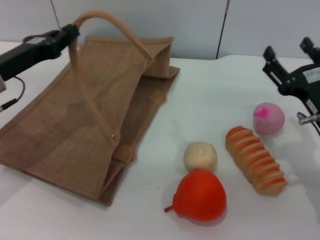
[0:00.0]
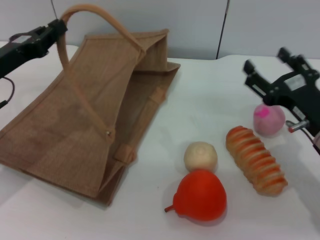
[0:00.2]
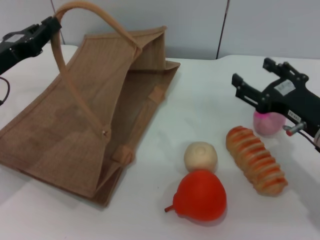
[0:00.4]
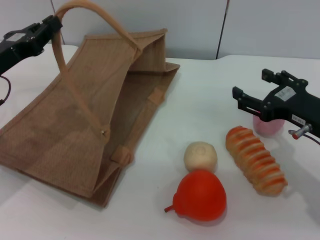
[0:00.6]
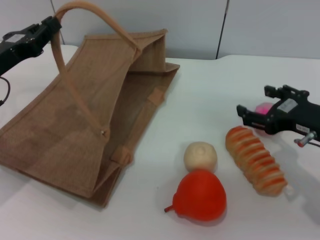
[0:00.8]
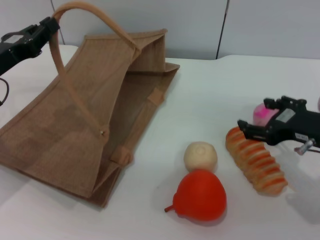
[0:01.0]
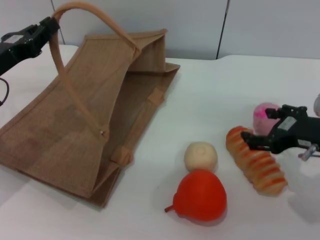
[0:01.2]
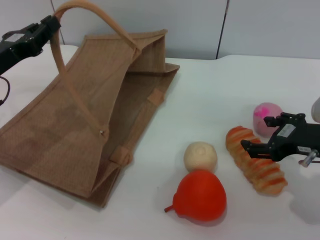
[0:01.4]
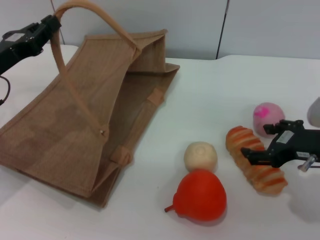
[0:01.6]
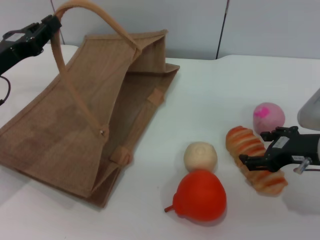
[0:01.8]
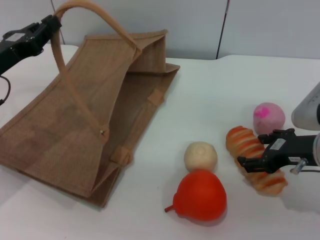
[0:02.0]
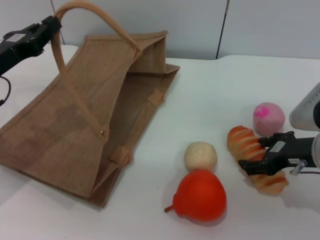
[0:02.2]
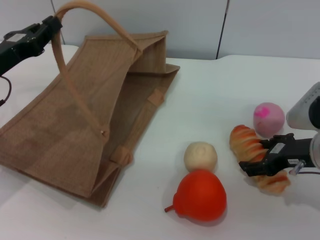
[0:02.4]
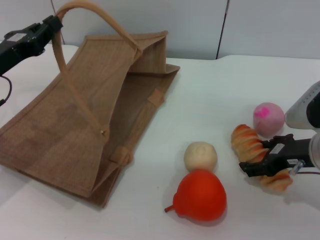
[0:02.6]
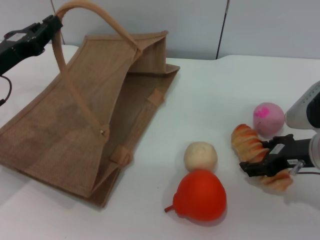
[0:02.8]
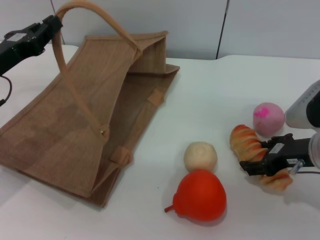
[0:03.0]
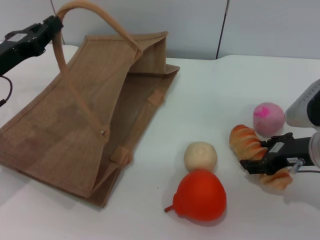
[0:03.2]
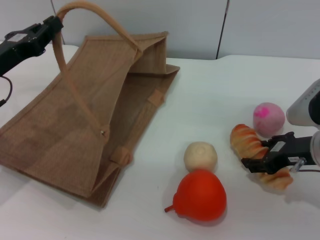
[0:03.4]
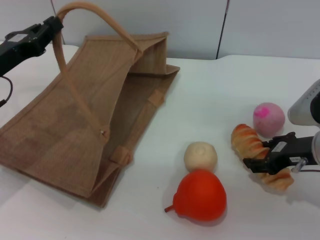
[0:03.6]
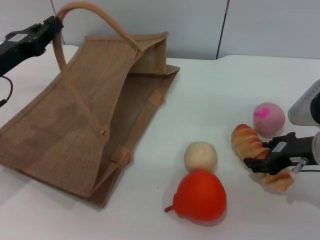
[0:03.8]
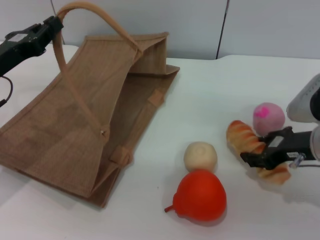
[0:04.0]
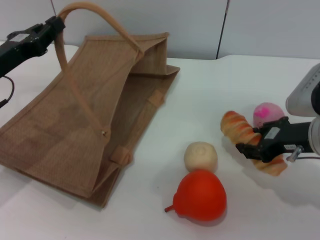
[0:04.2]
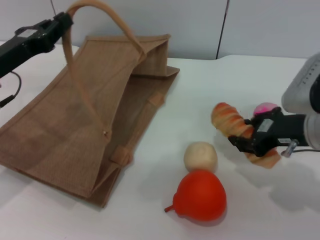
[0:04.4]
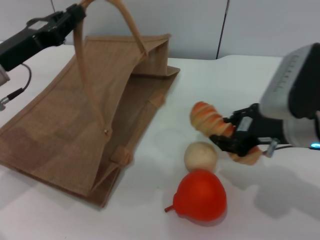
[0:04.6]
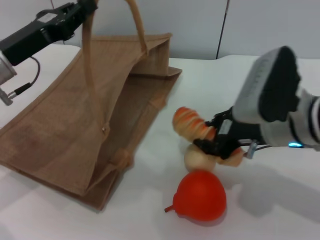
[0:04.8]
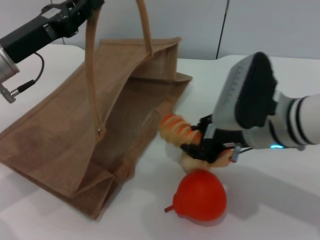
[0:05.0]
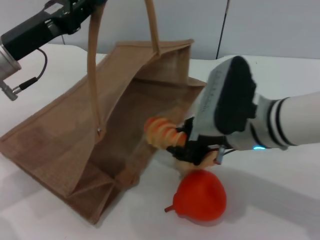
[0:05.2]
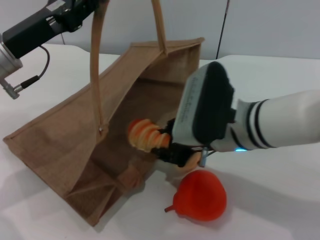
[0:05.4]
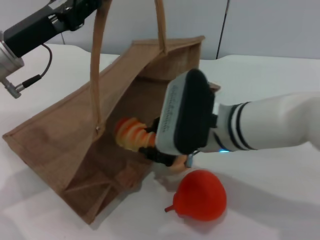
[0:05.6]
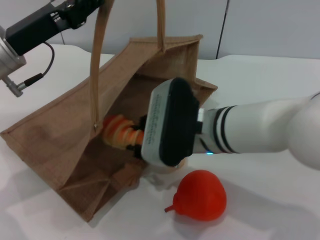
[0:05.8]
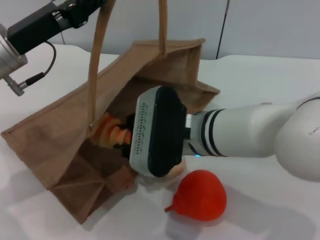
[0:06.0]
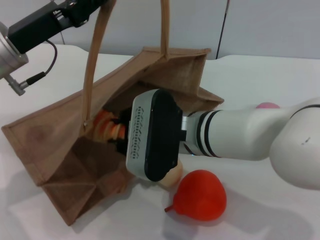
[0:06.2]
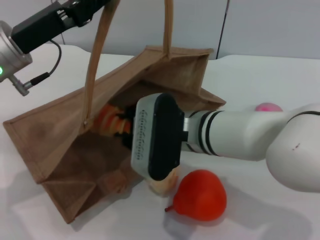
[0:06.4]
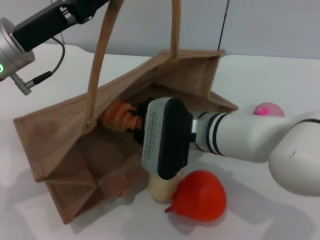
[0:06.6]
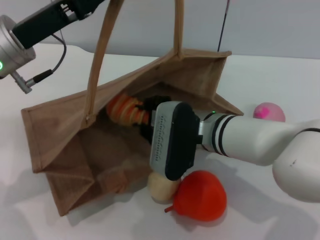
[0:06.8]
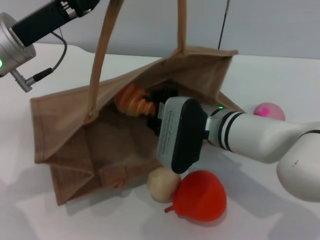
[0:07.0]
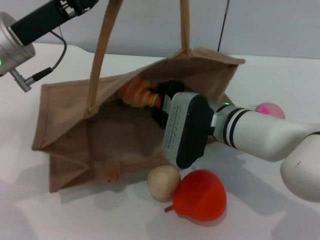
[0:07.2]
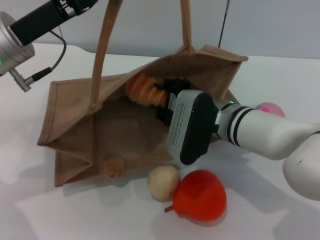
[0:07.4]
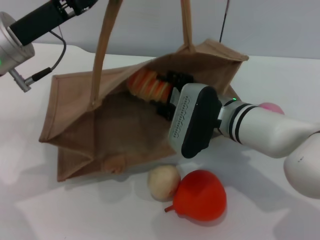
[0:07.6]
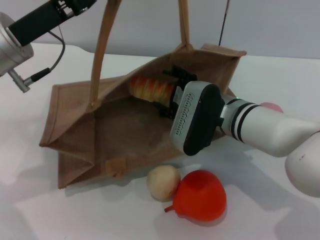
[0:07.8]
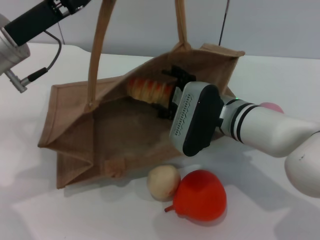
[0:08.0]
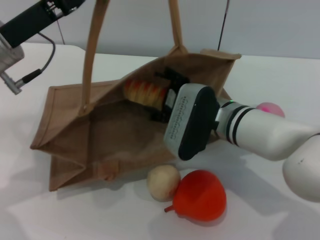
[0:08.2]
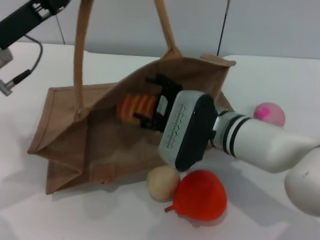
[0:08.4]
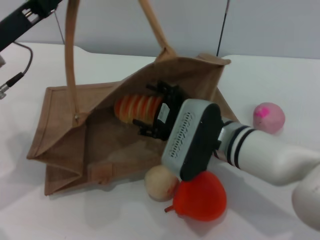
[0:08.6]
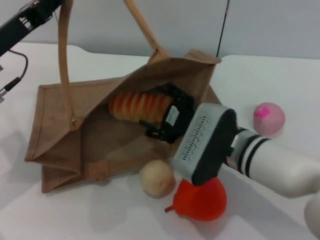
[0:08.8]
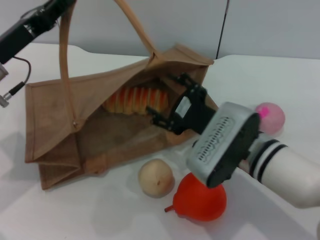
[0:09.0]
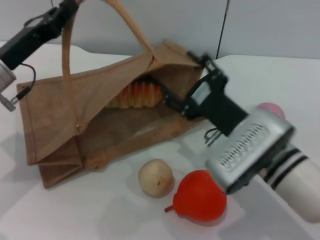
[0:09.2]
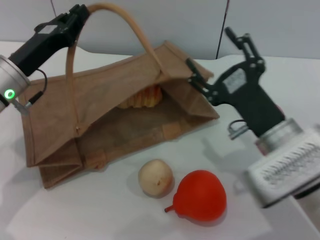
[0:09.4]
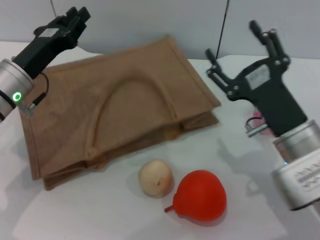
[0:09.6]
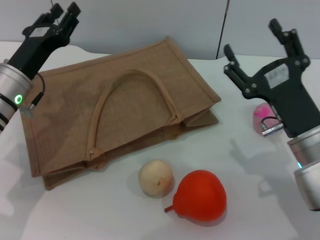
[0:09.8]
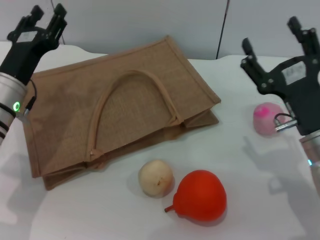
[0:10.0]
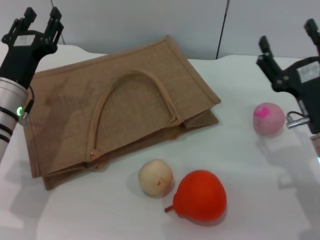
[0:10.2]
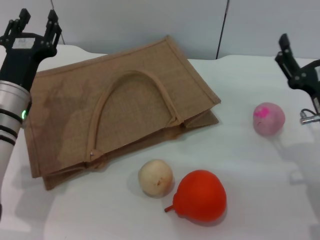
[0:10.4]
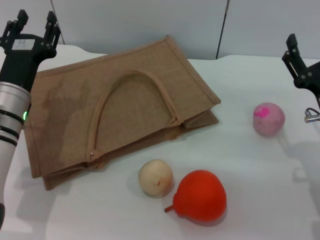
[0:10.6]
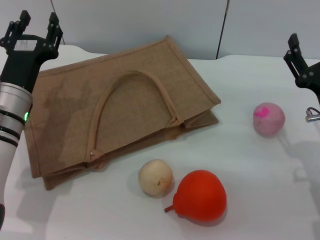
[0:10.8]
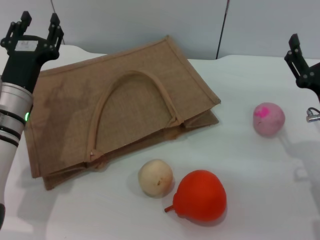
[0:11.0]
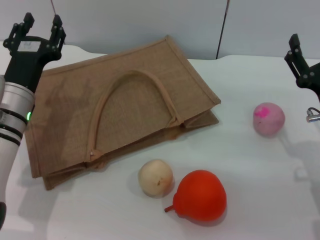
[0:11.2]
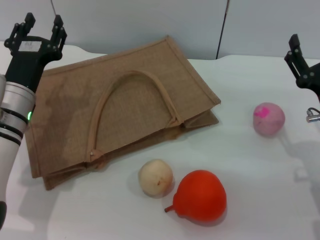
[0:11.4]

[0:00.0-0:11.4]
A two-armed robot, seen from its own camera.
Task of the whole recording: pick up the bread from the table and place it in the brown handbag.
Step, 0:00.2 to 0:00.4: Pick up the bread with the right gripper.
Step, 0:00.6 to 0:09.2: Place the bread into the woven bag with the right gripper.
Step, 0:09.4 to 0:09.8: Lower the woven bag with the left gripper to close it.
0:01.4 to 0:02.8: The right gripper shifts by some 5 cm.
0:02.8 to 0:04.2: The right gripper closes up.
0:04.2 to 0:05.6: The left gripper goes about 5 cm to the right, while the right gripper travels to the left by approximately 15 cm, and closes its fingers.
0:05.6 to 0:07.2: The right gripper ends up roughly 5 cm from where it was.
0:07.2 to 0:08.6: The left gripper changes place by about 5 cm, while the right gripper opens its fingers.
0:08.6 to 0:10.0: The left gripper goes roughly 10 cm downward, and opens up; the right gripper moves to the right, roughly 10 cm.
0:10.0 to 0:11.4: The left gripper opens its fingers.
